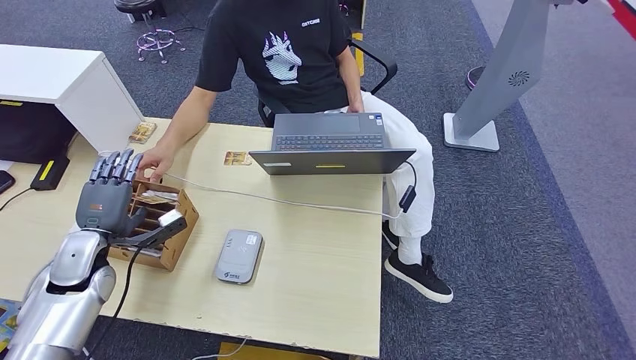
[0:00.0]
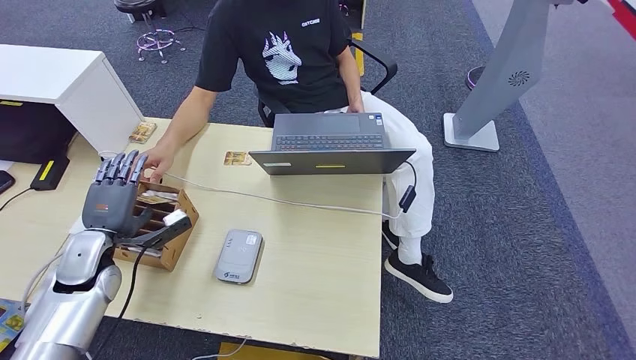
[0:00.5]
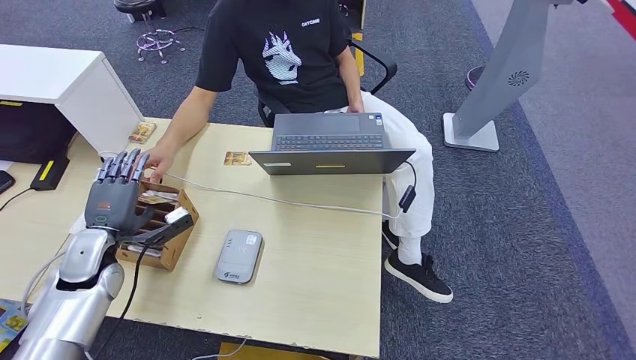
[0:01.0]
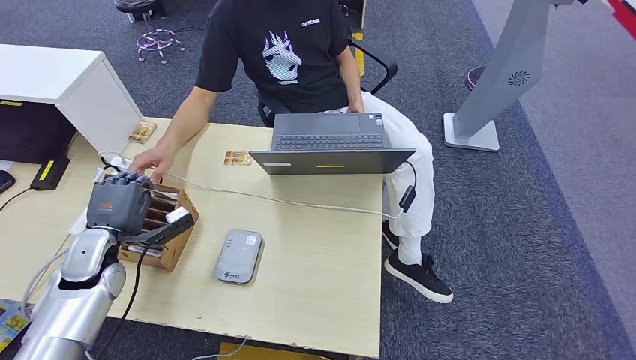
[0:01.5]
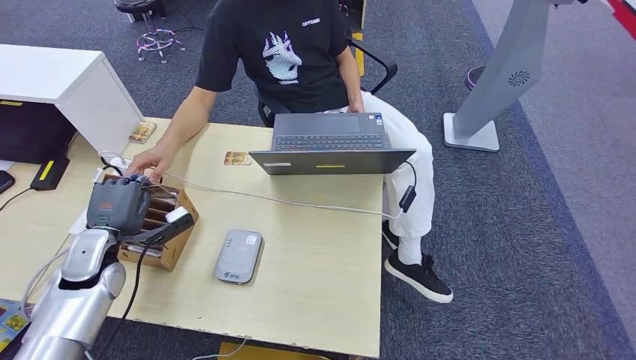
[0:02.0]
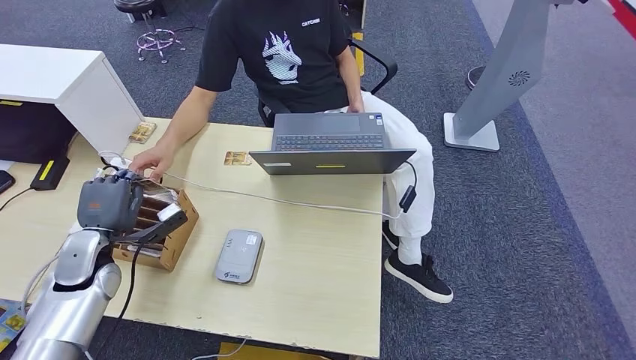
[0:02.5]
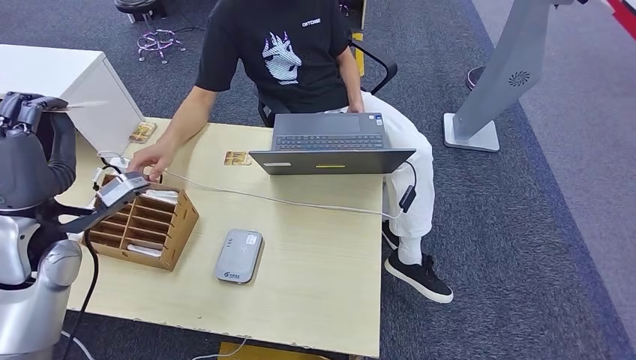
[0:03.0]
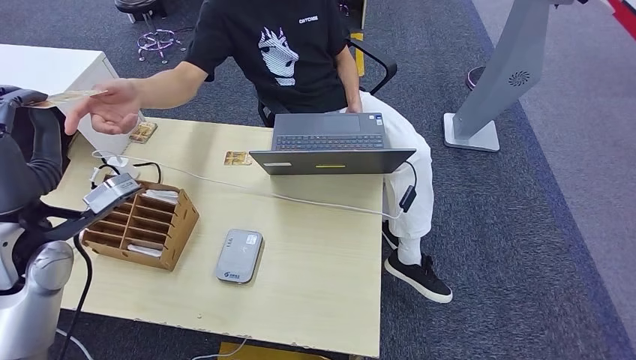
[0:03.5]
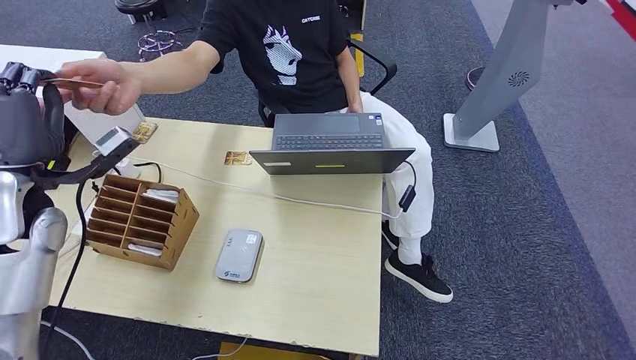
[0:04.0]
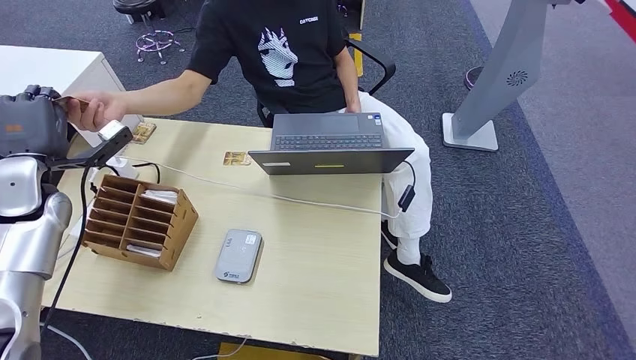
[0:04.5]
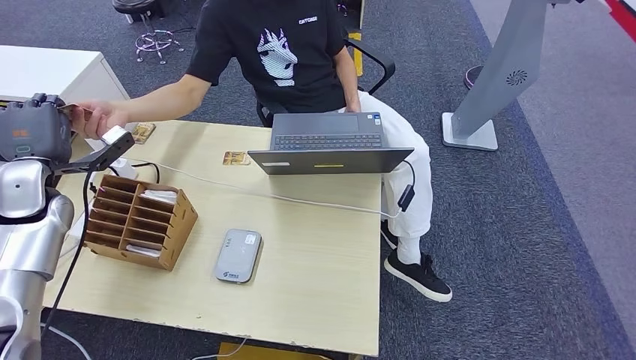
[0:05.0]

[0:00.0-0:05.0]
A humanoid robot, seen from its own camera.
Step, 2.0 to 4.5 s: Hand the room key to the person.
0.0 to 2.5 s: The hands make only small movements.
2.5 to 5.0 s: The left hand moves upward, forward and to the left, about 15 cm.

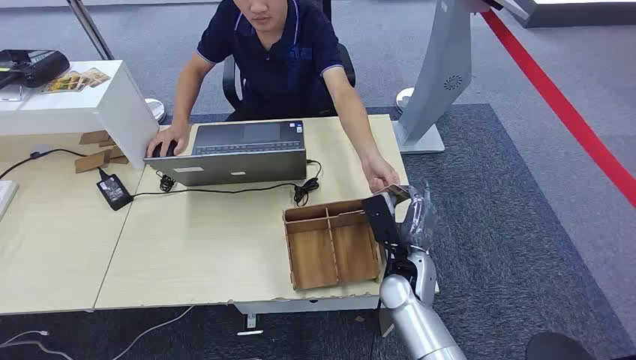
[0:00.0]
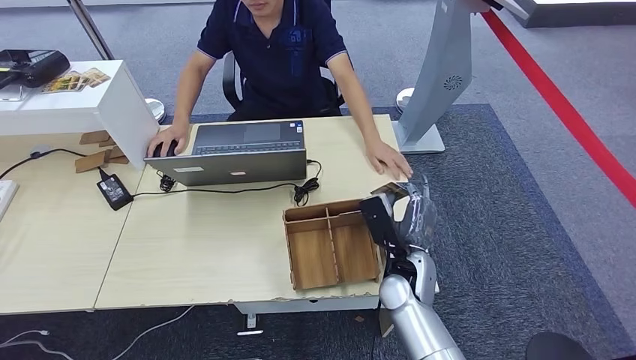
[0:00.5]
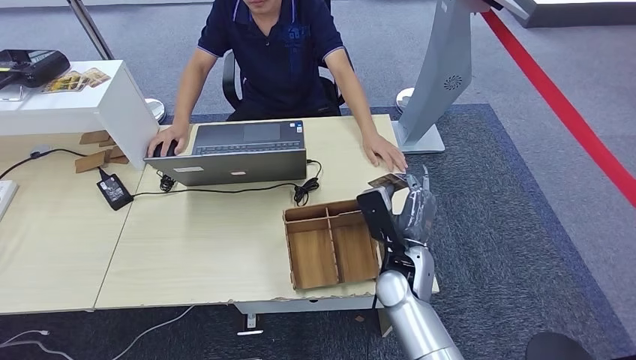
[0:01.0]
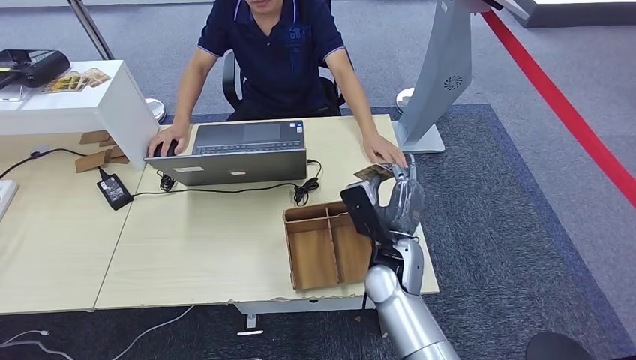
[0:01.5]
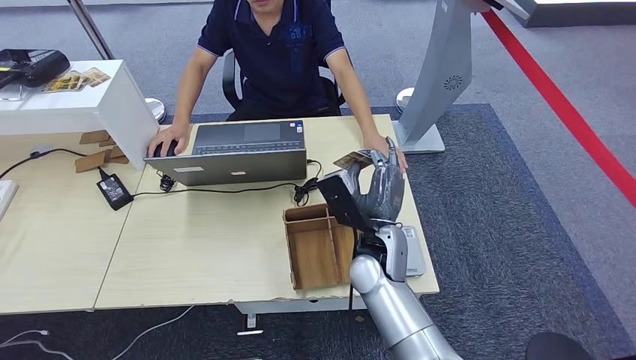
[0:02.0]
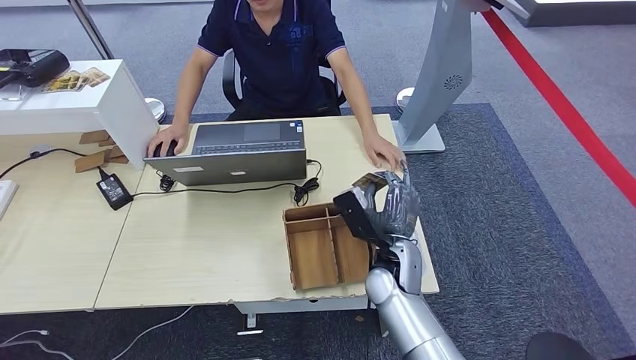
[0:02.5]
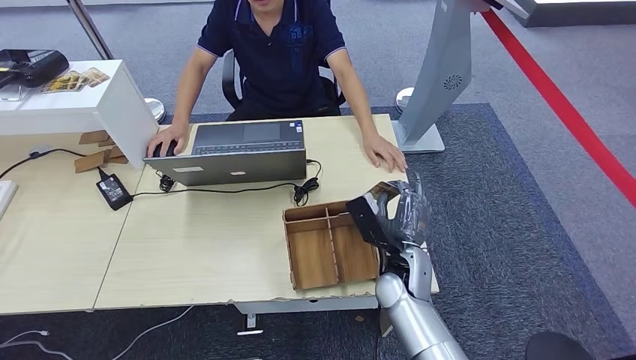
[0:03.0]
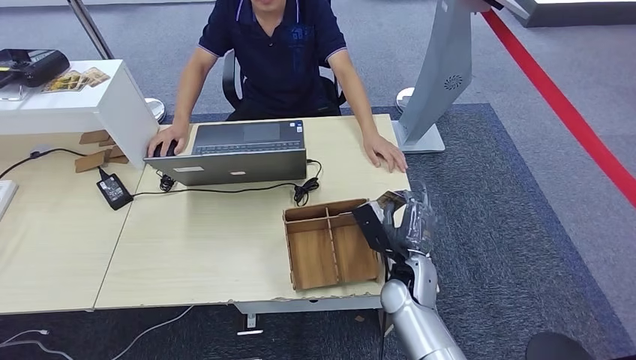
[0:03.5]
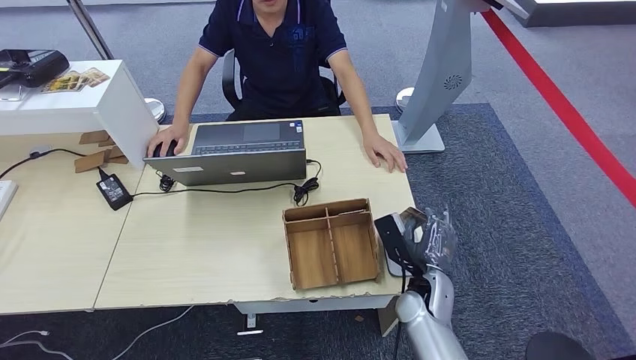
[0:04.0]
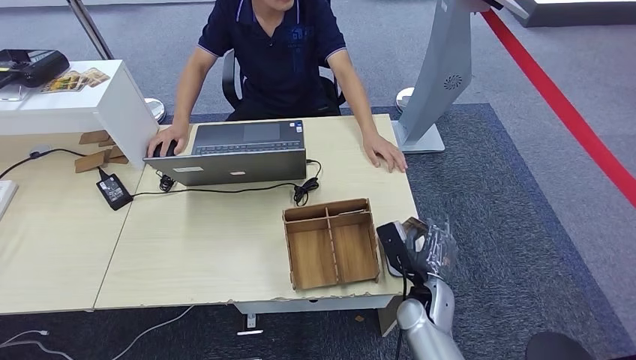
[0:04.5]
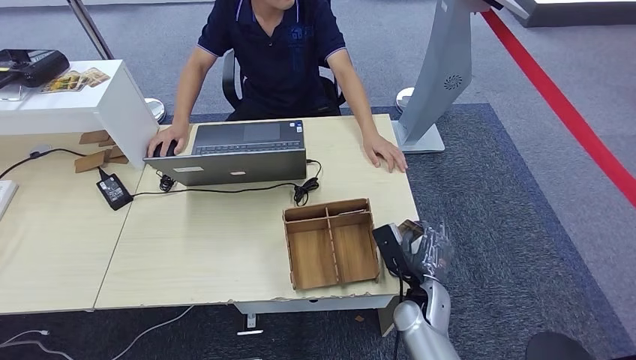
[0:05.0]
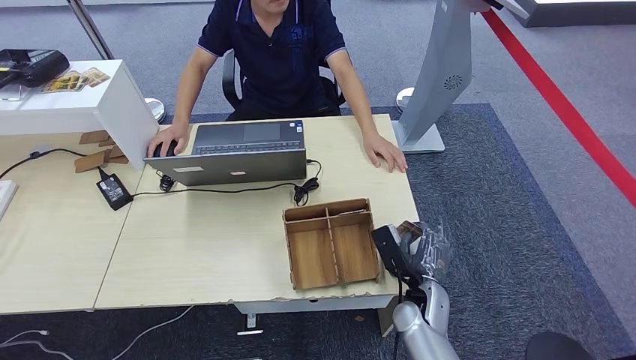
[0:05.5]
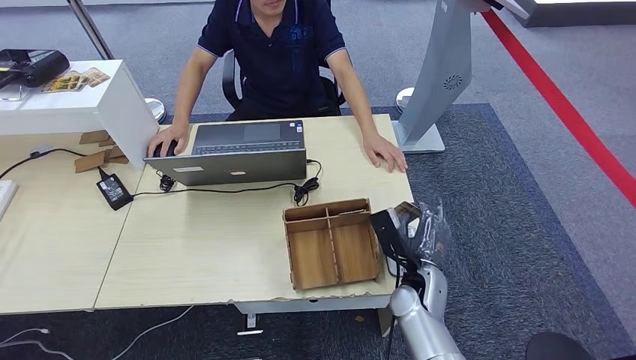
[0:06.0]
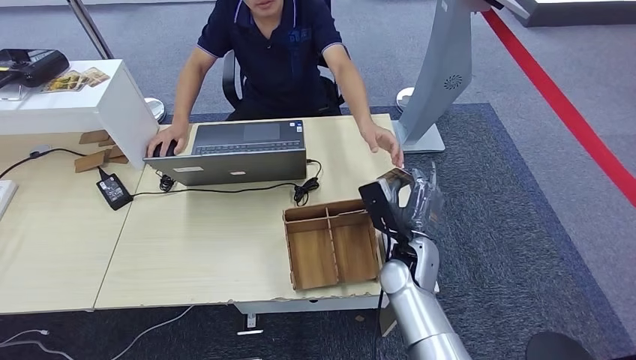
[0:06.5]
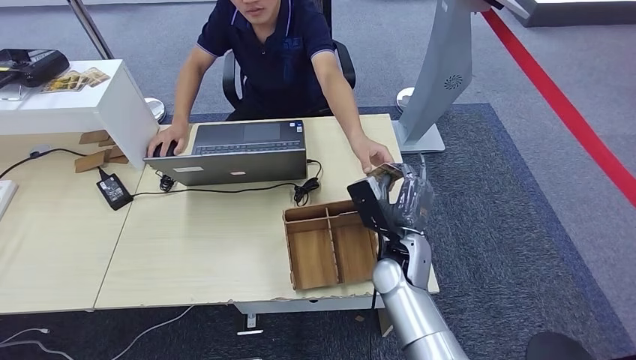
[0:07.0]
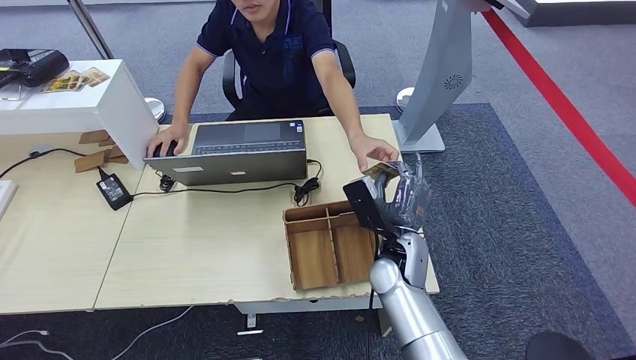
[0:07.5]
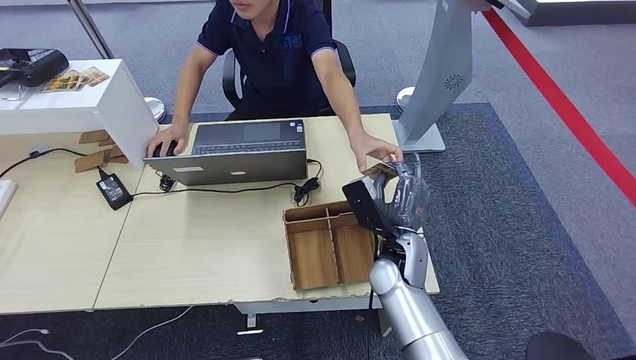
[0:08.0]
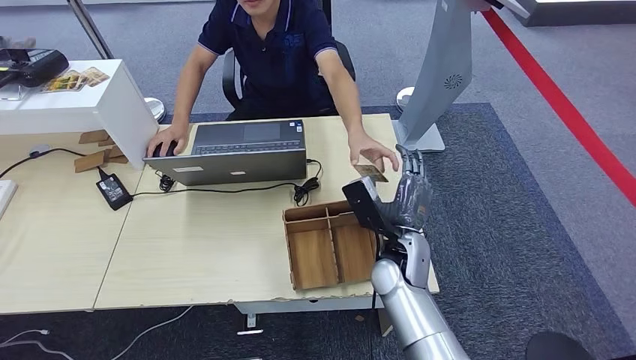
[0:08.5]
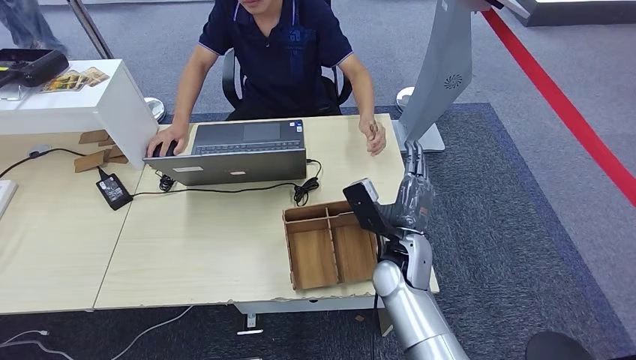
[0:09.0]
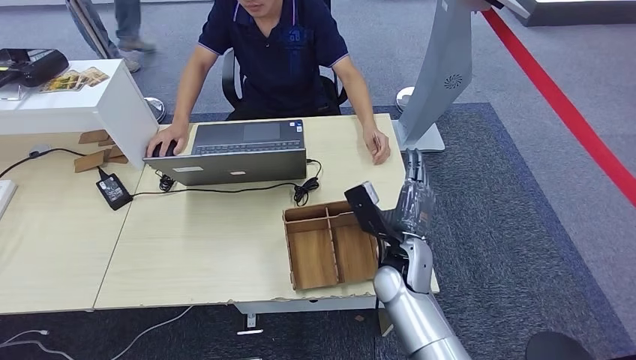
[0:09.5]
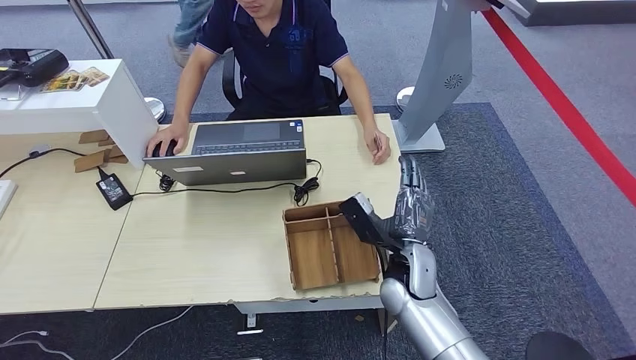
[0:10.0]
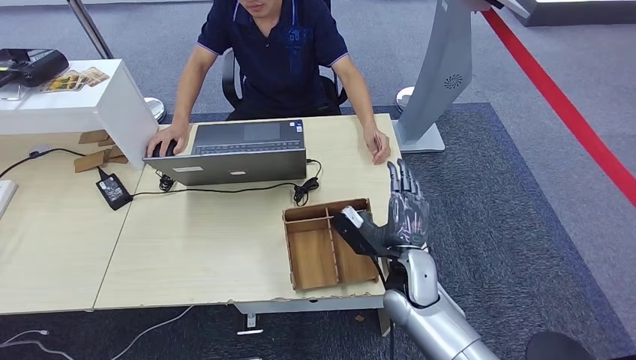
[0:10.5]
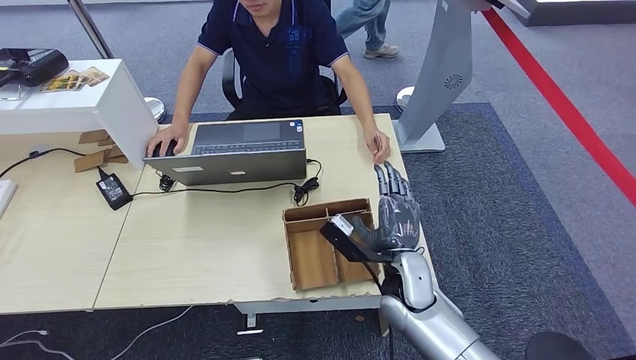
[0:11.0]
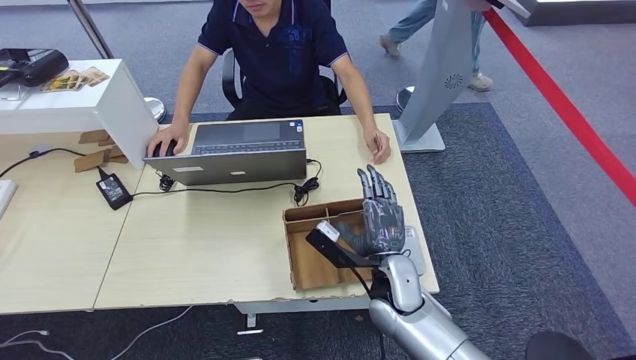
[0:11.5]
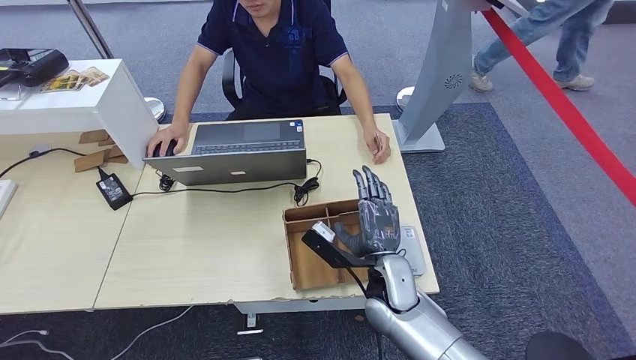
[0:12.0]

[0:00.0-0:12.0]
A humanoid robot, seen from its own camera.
Step, 0.0 to 0.5 s: Take the ID card from the person's hand.
Step, 1.0 to 3.5 s: Place the ID card on the card reader.
Step, 4.0 to 8.5 s: Hand the ID card to the person.
2.0 to 4.0 s: The right hand shifts some 15 cm downward and to the right.
4.0 to 6.0 s: The hands move only a little.
6.0 to 8.0 s: The right hand heads upward, covering some 5 cm.
8.0 to 10.0 s: The hands move only a little.
10.0 to 12.0 s: The hands stay close to where they were, moving slightly.

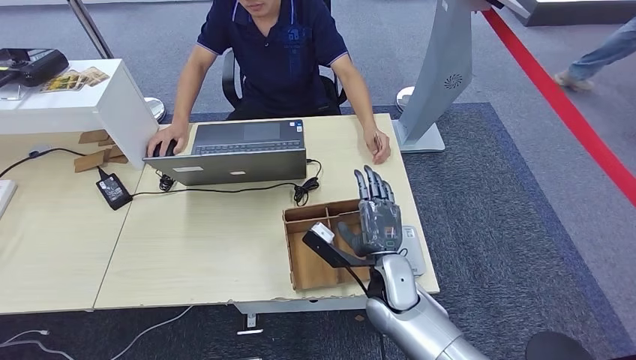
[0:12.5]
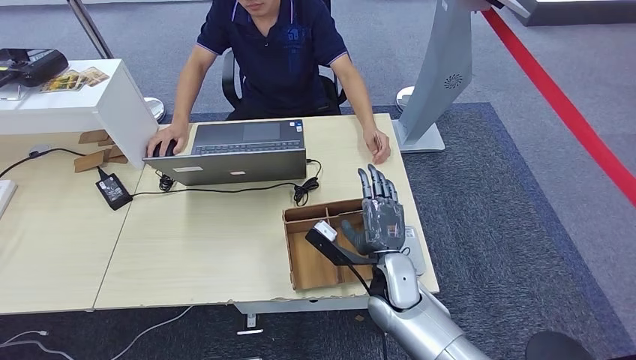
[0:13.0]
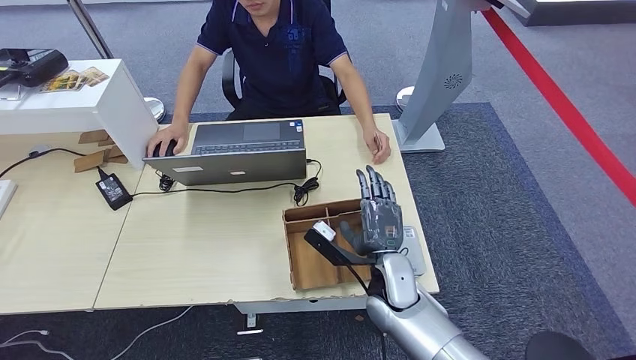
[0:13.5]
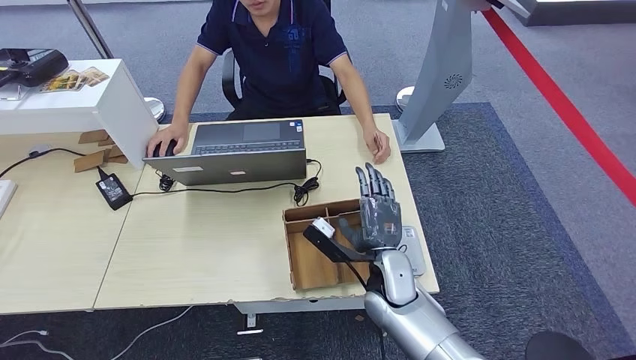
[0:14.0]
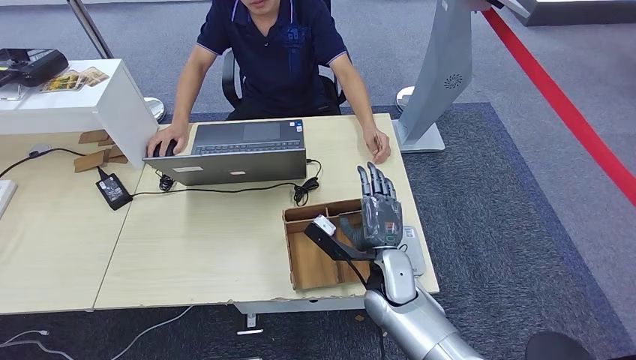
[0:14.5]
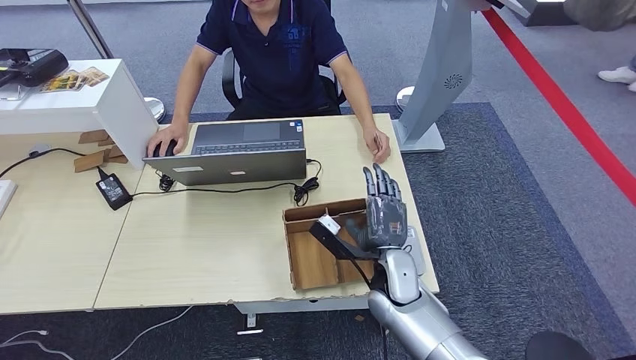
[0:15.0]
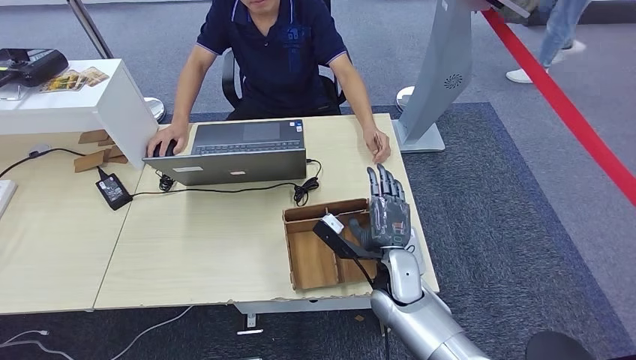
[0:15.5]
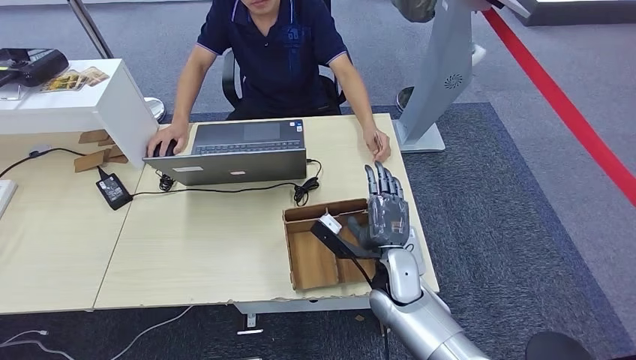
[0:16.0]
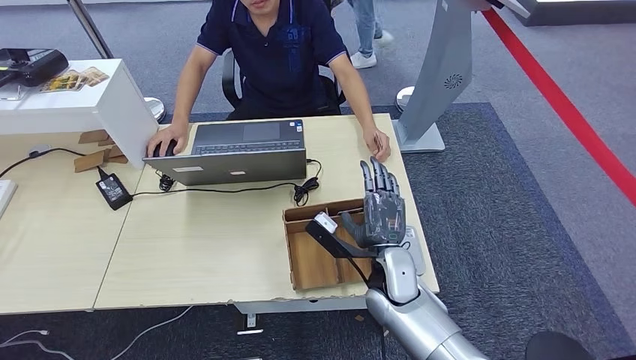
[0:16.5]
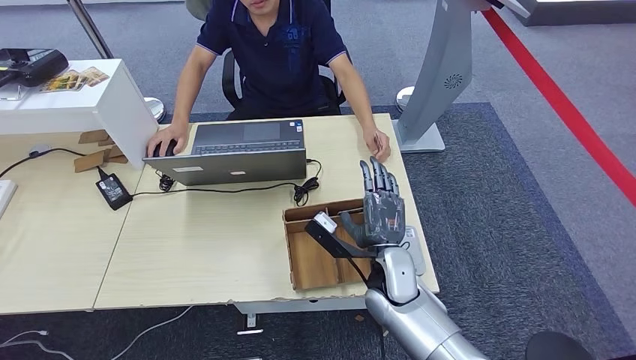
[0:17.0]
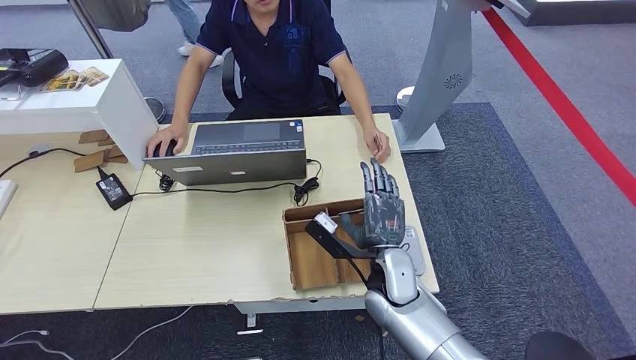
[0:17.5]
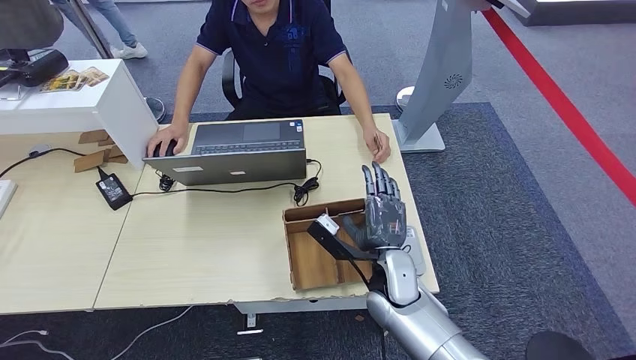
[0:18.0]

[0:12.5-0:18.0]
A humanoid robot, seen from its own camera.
12.5 to 14.5 s: The two hands keep their place.
14.5 to 16.0 s: Both hands stay about where they are.
16.0 to 18.0 s: There are only small adjustments of the hands.
